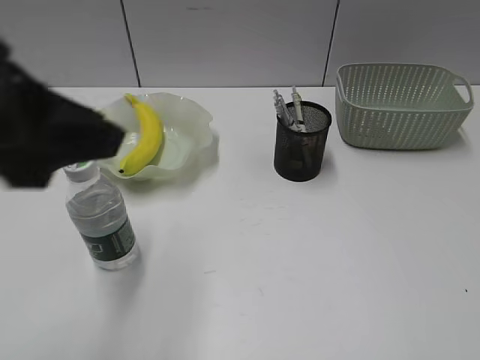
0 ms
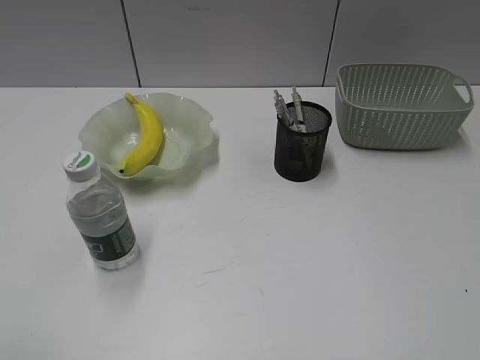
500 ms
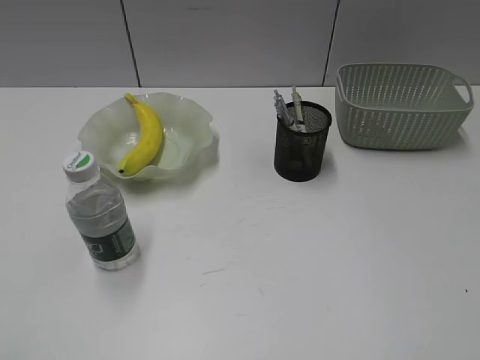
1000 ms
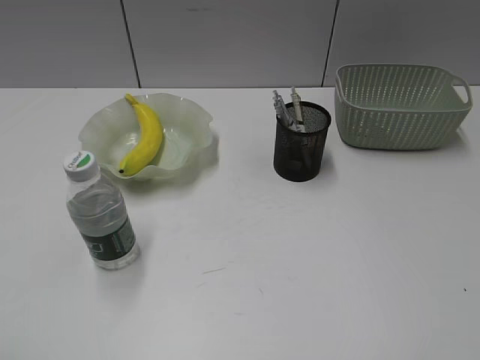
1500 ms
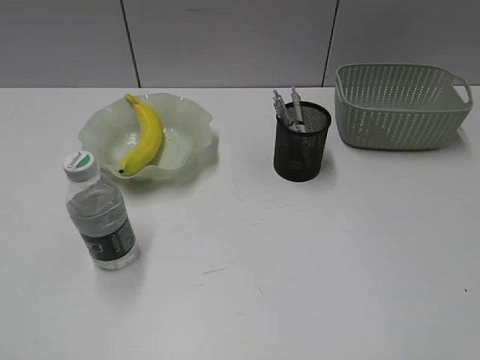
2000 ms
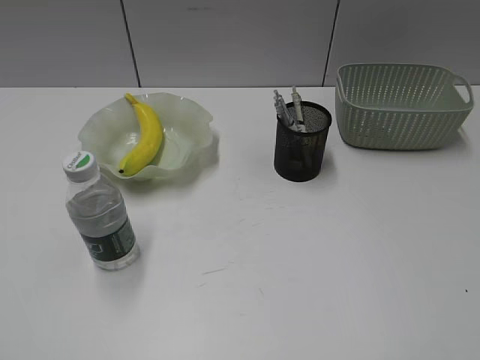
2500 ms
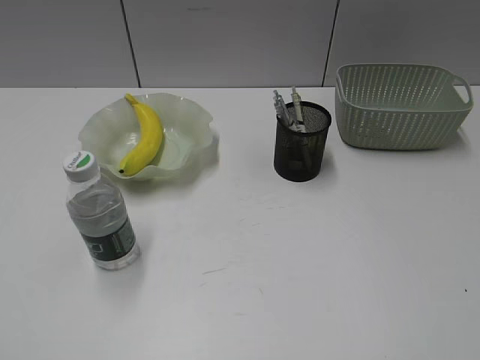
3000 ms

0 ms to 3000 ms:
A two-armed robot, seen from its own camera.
0 ms to 1500 ms: The left gripper is displaced to the left and backward by about 25 cm.

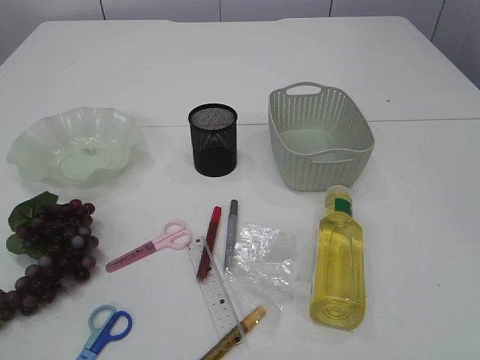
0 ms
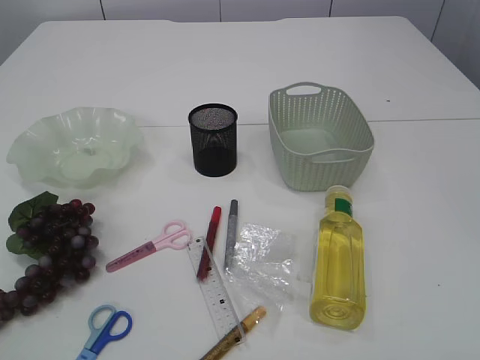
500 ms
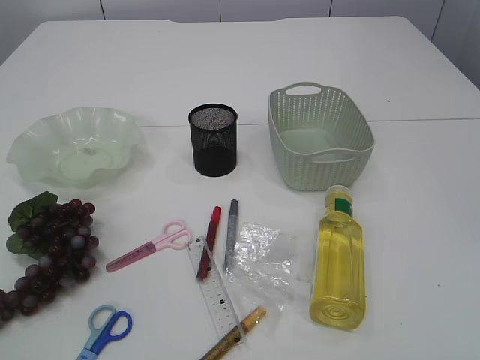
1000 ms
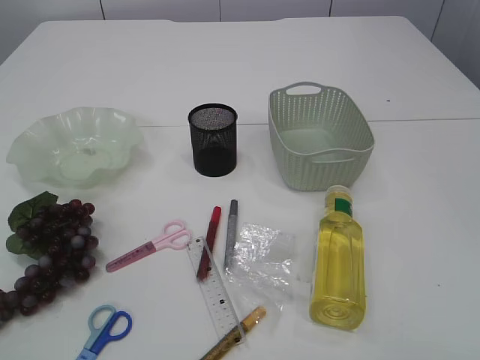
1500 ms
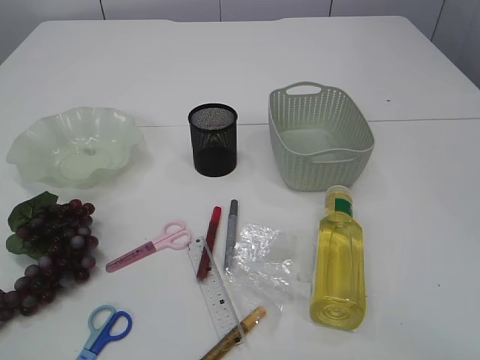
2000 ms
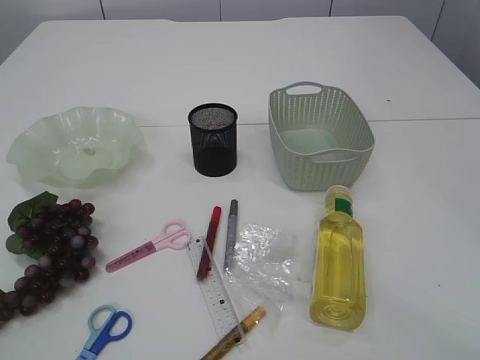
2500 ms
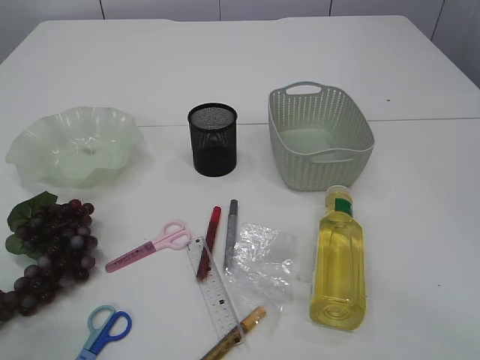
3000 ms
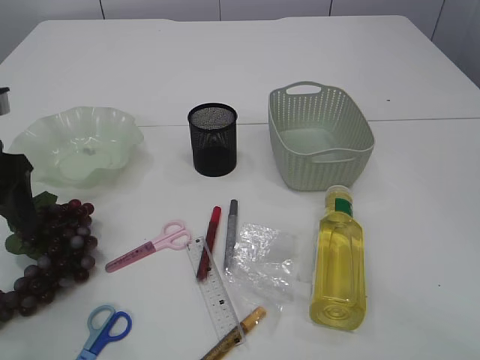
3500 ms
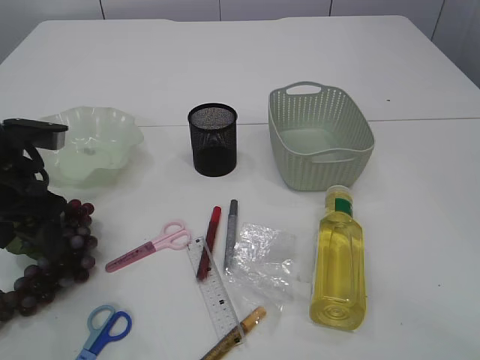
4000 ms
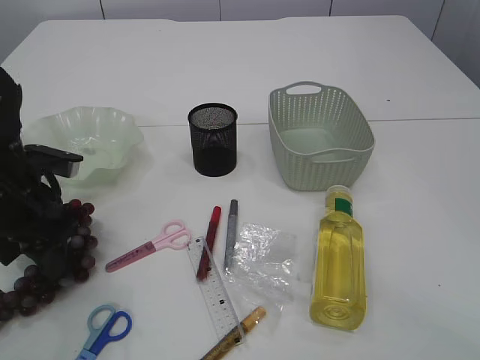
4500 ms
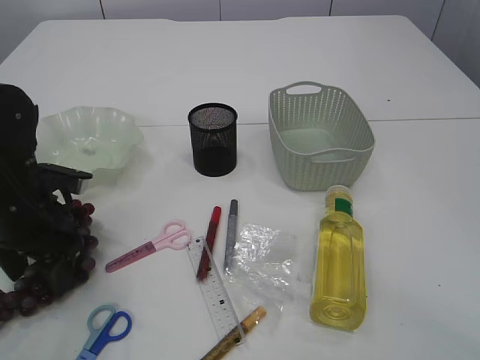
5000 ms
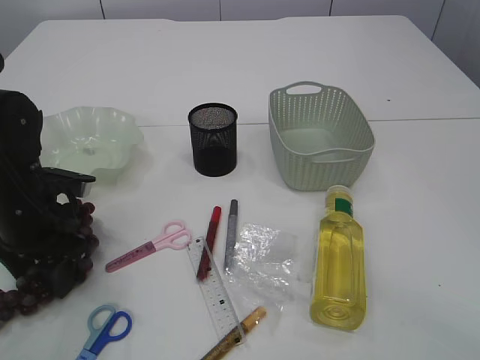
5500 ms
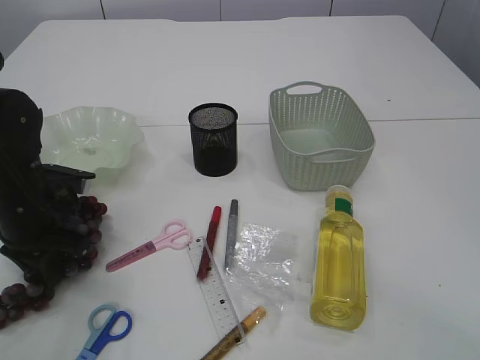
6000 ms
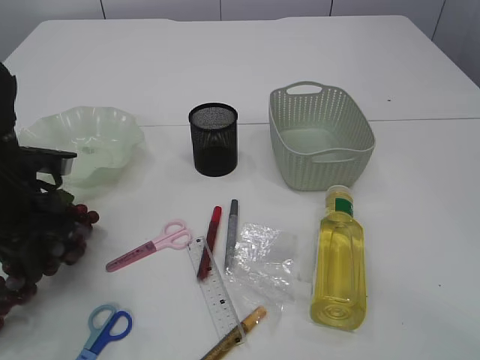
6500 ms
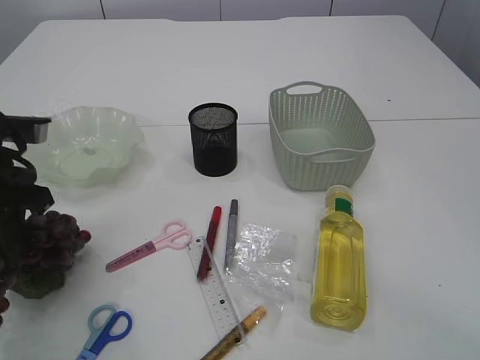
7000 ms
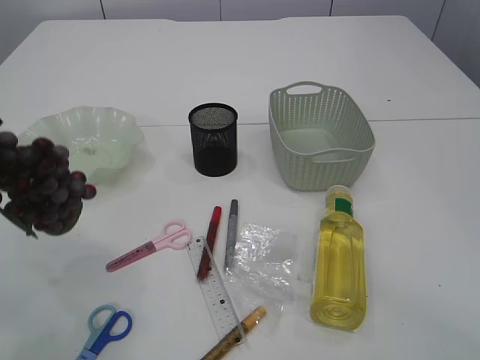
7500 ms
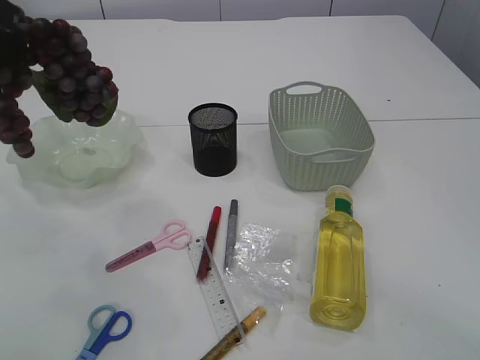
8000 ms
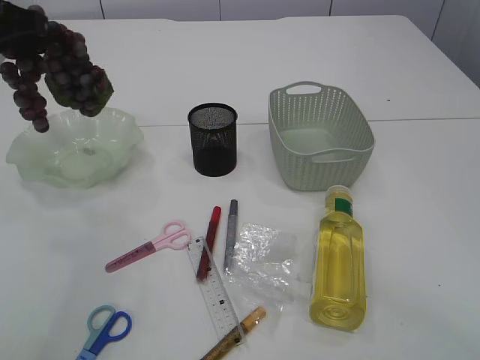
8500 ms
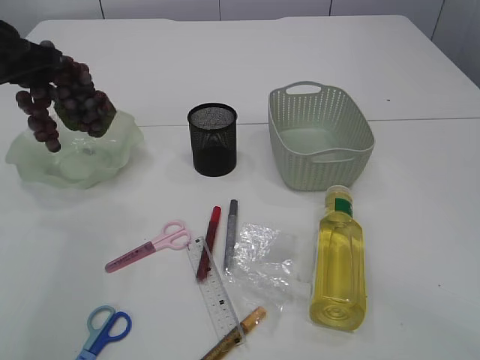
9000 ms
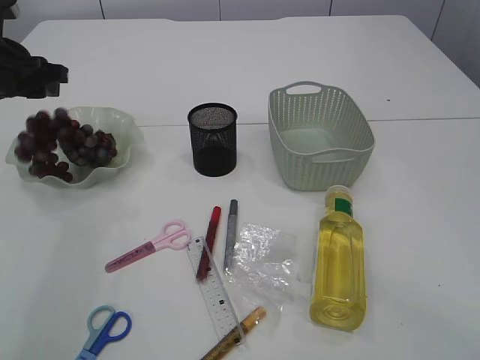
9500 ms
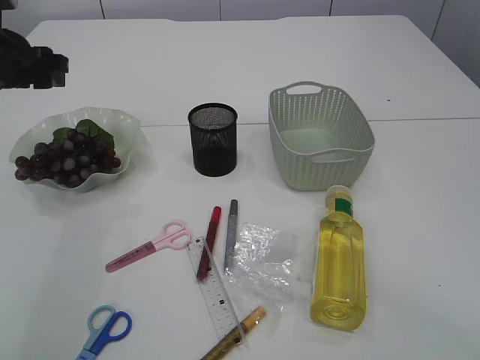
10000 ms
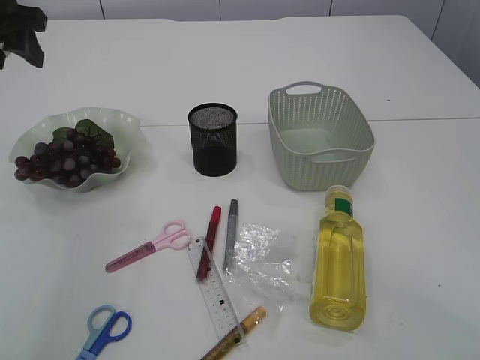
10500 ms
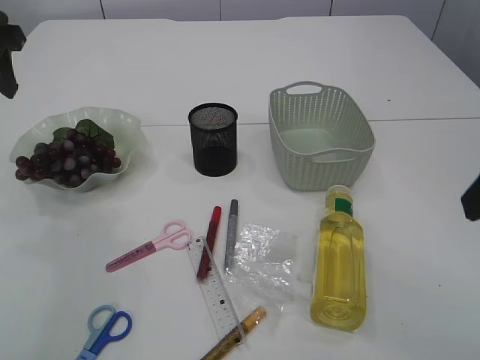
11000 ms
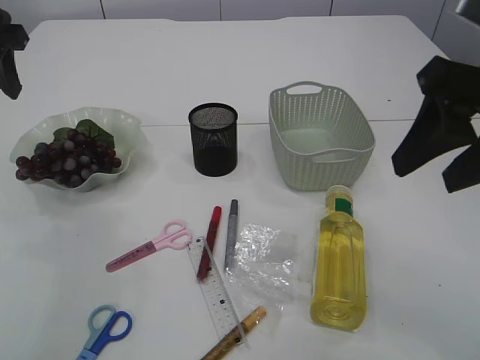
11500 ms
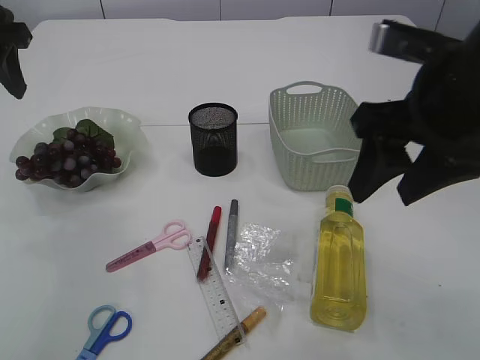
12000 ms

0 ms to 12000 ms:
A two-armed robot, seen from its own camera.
Step, 0 ms to 7000 ms: Pick up the grapes.
Step, 7500 ms to 10000 ms: Place the grapes in the plate.
2000 ms to 4000 ms: The left gripper heads forward, covering roughly 30 cm, and opens its fingers.
4000 ms to 6000 ms: The left gripper is displaced downward by approximately 10 cm, and closes up.
6000 ms to 8000 ms: The left gripper goes about 25 cm upward.
8000 ms to 10000 ms: The left gripper goes roughly 15 cm forward and downward, and opens up.
10000 ms to 12000 ms: The right gripper heads forward and to the left, covering about 15 cm, while the left gripper is displaced upward by roughly 5 cm.

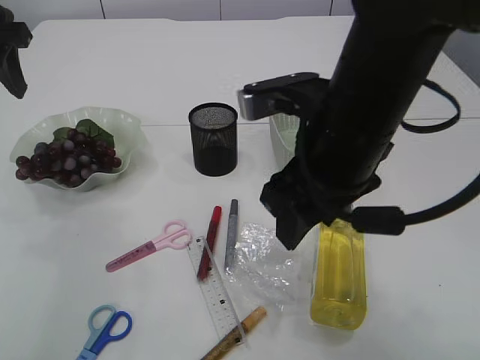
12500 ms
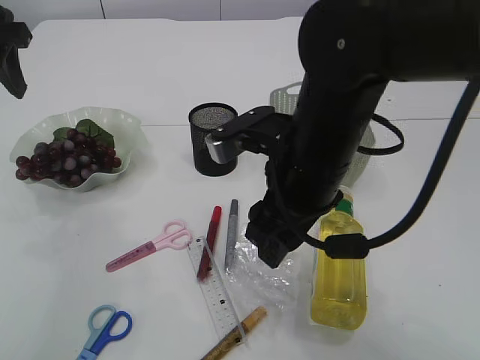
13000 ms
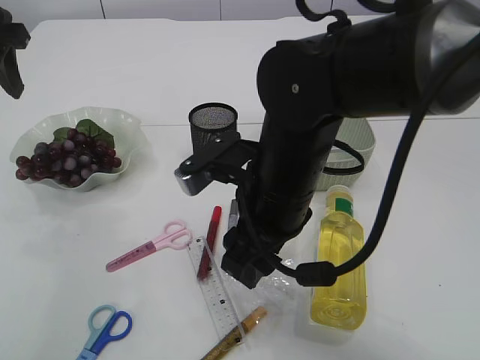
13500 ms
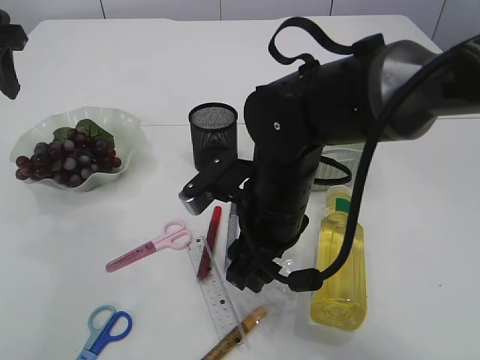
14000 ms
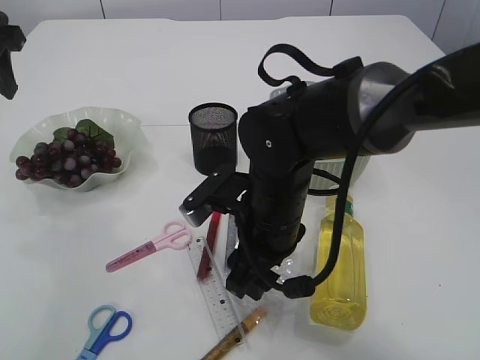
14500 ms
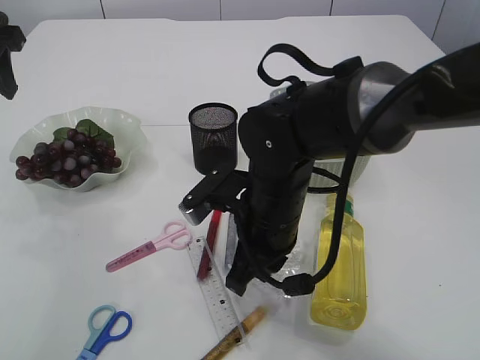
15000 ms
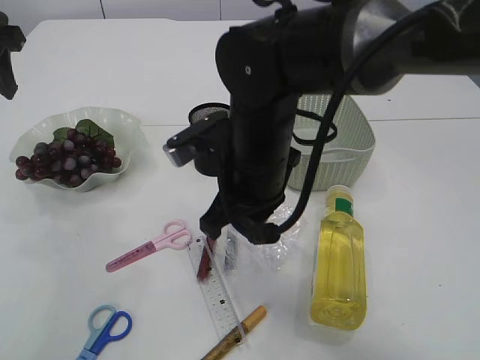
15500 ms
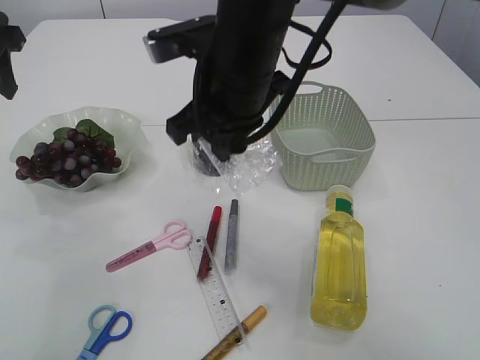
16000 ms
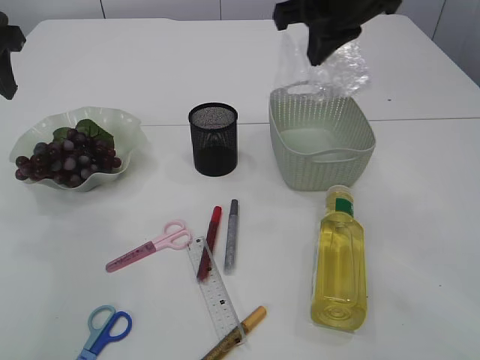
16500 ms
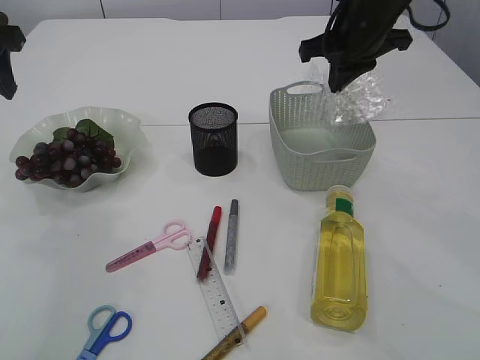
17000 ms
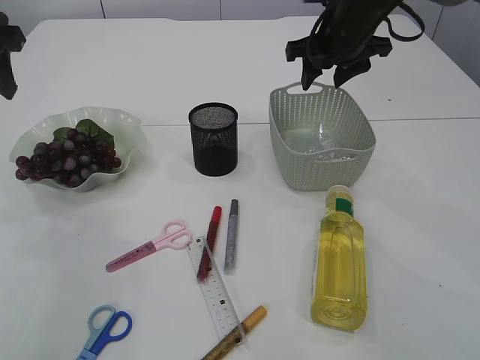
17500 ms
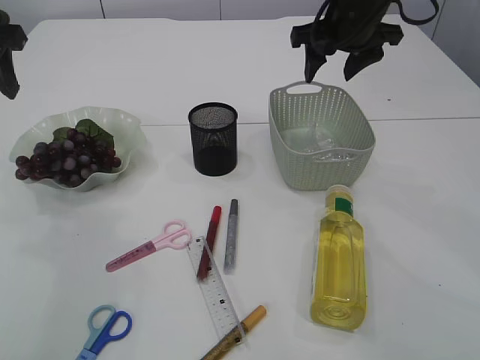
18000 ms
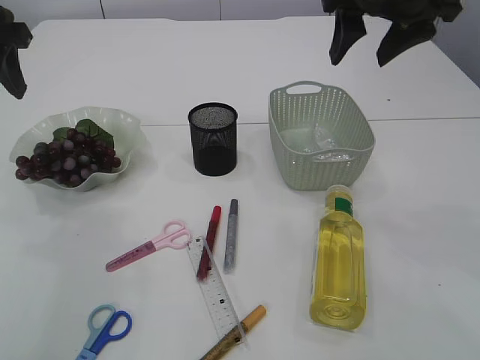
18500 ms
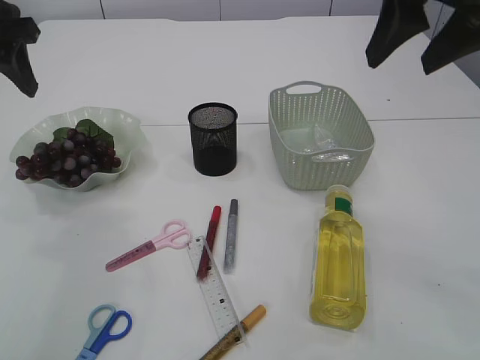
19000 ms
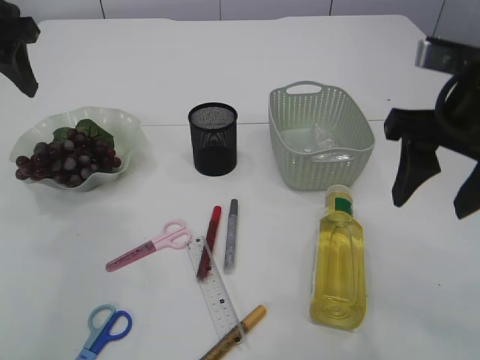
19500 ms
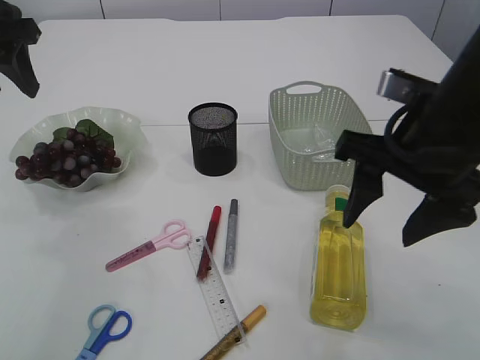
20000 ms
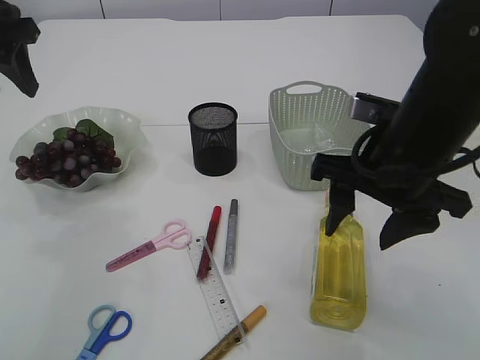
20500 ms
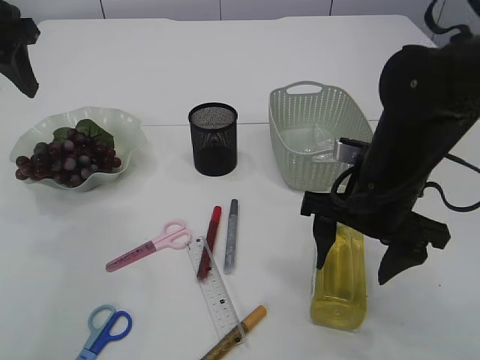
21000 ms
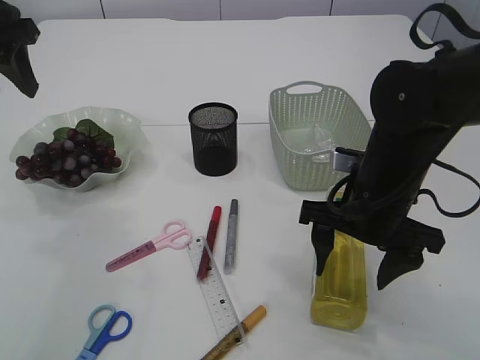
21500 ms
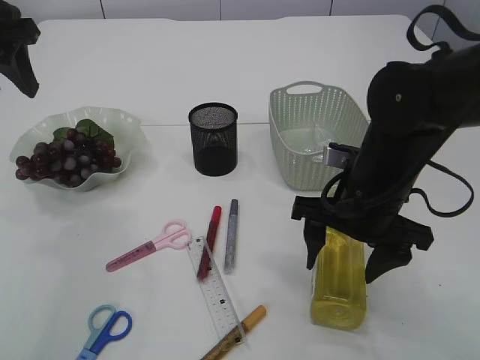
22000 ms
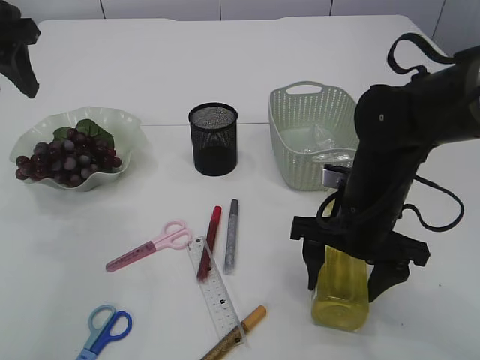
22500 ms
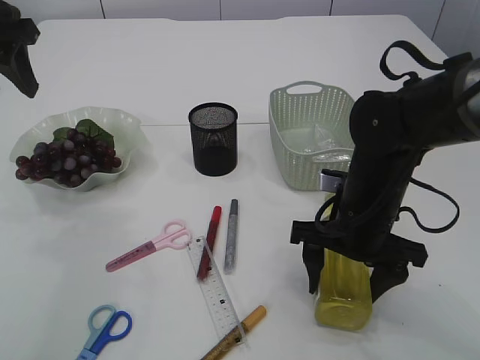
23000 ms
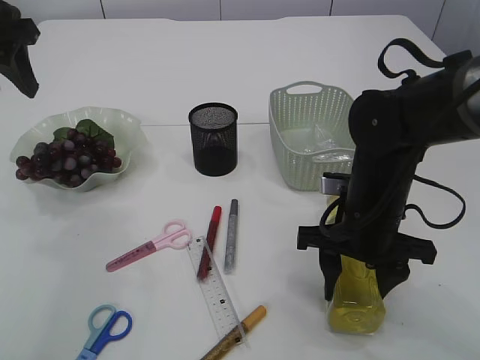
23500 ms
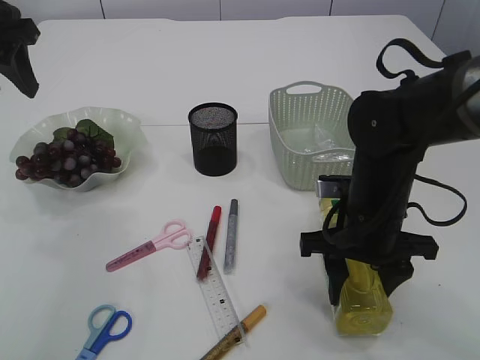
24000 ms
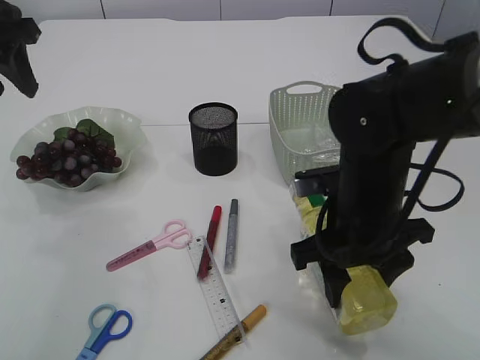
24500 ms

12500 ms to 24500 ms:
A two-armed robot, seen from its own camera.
Step, 12500 ms to 15500 ms: Pick up the plastic.
Step, 16000 ms to 17500 ms: Place the plastic in the basket.
12500 ms to 14500 ms: The right gripper shifts some 15 cm downward and to the left.
14500 ms to 16500 ms: The right gripper moves upward, forward and to the right, approximately 25 cm, and closes up.
16500 ms to 18500 ms: The right gripper heads to the right, covering approximately 5 cm, travels forward and back again, roughly 5 cm each way, and opens.
18500 ms to 20500 ms: The right gripper heads backward and downward, covering roughly 15 cm.
20500 ms to 22500 ms: The right gripper heads downward, covering some 10 cm.
